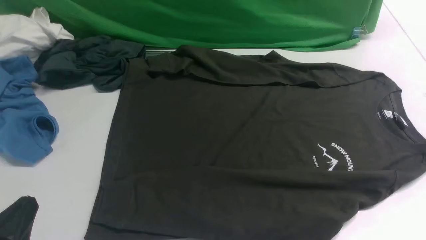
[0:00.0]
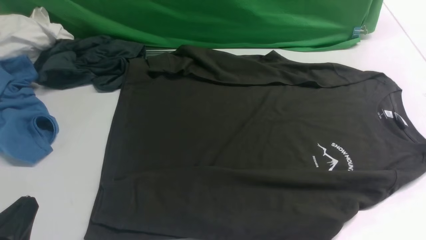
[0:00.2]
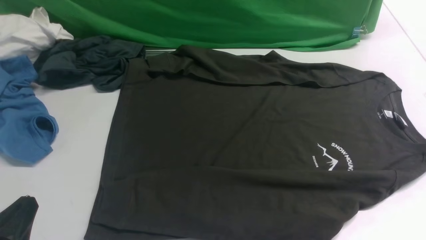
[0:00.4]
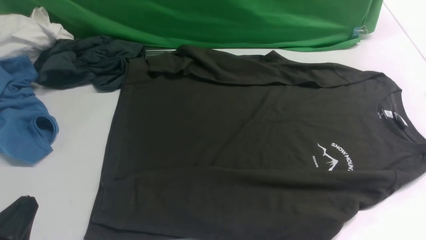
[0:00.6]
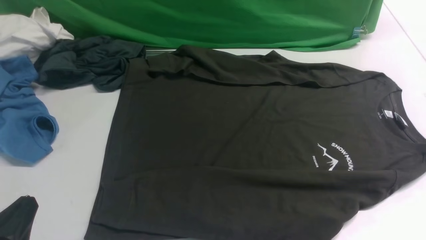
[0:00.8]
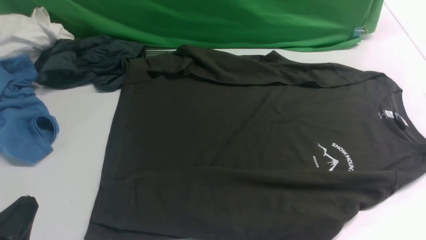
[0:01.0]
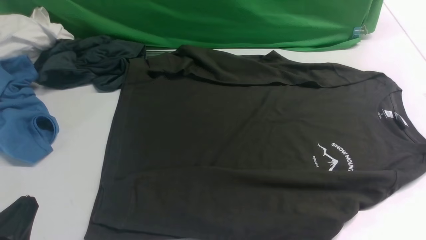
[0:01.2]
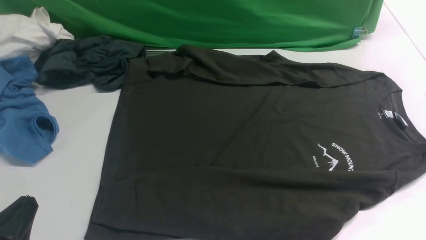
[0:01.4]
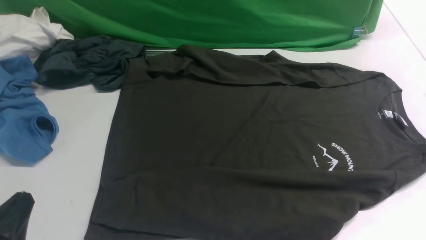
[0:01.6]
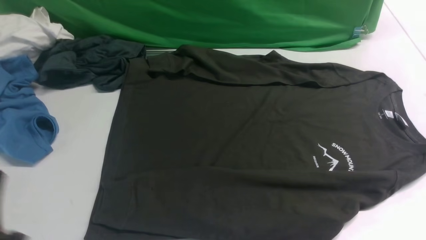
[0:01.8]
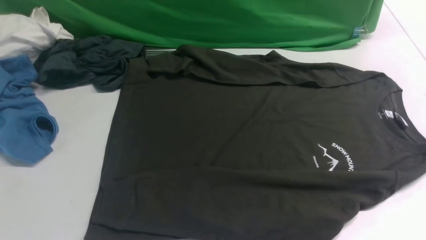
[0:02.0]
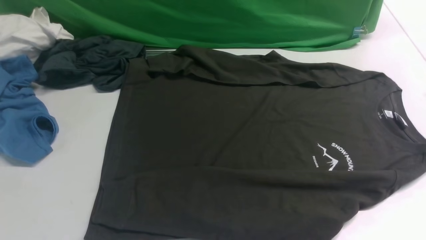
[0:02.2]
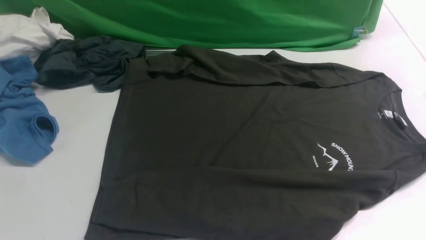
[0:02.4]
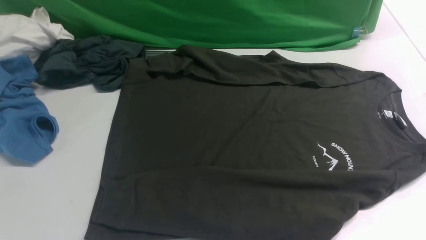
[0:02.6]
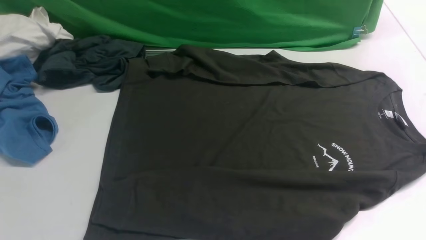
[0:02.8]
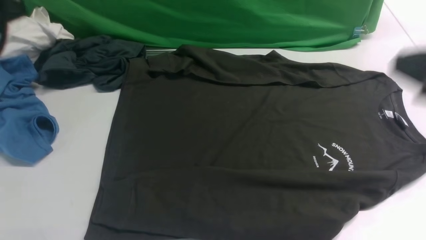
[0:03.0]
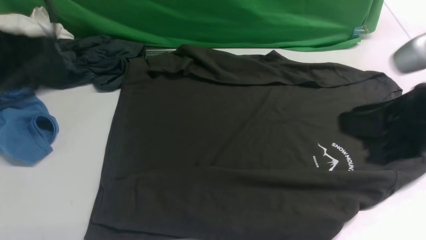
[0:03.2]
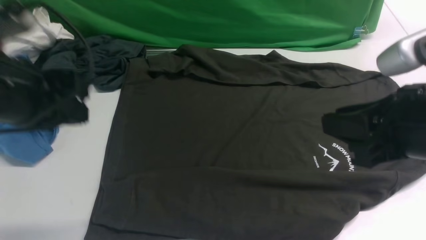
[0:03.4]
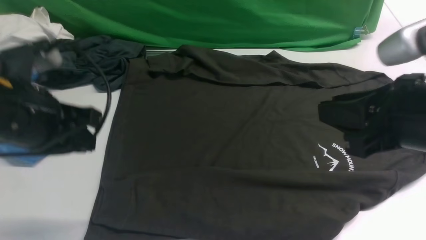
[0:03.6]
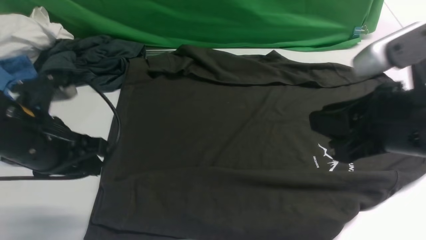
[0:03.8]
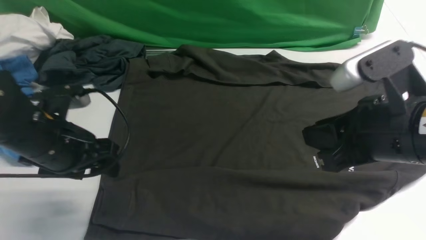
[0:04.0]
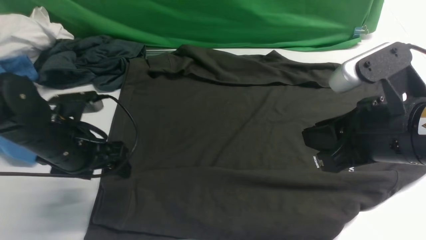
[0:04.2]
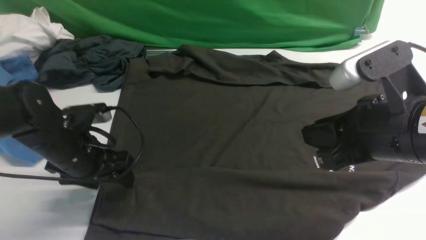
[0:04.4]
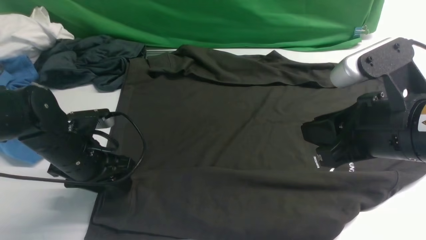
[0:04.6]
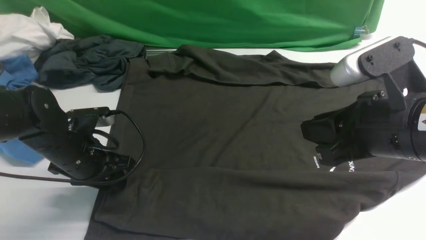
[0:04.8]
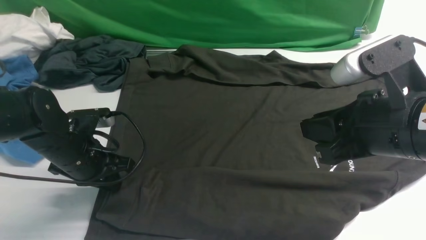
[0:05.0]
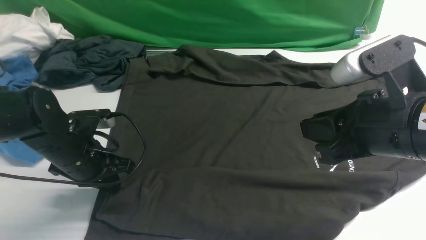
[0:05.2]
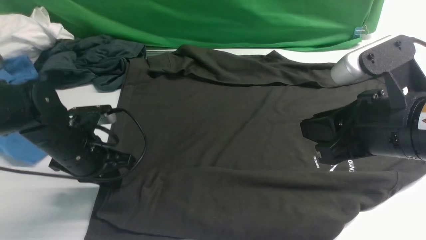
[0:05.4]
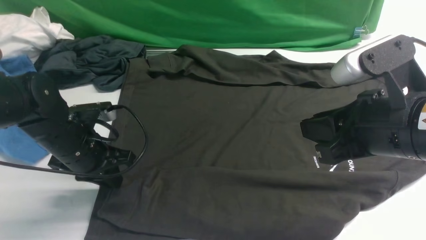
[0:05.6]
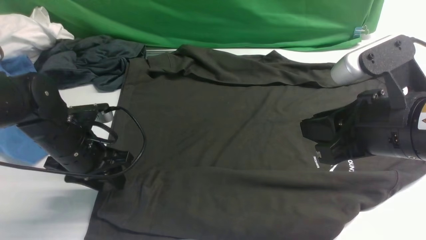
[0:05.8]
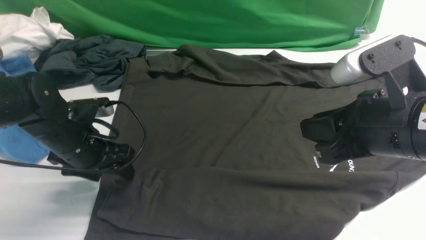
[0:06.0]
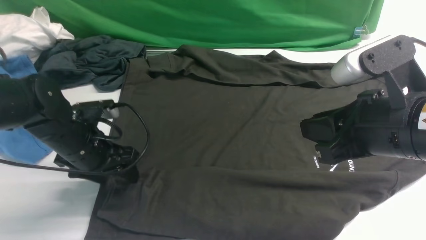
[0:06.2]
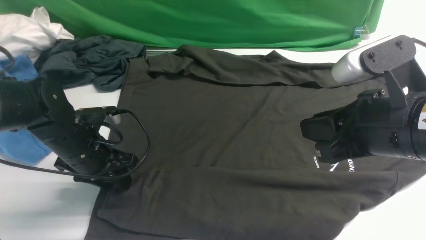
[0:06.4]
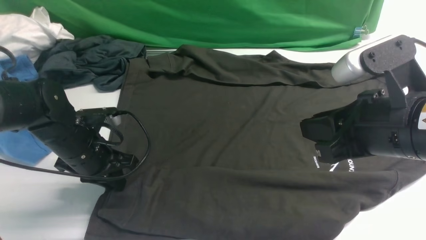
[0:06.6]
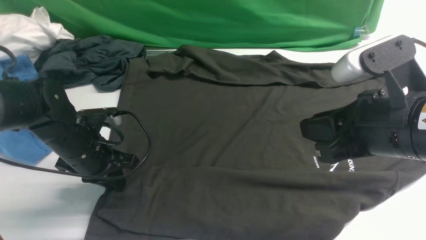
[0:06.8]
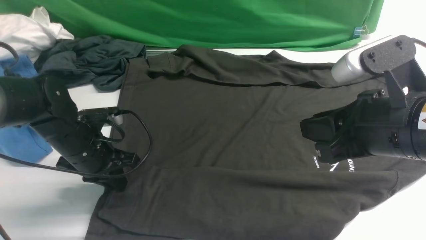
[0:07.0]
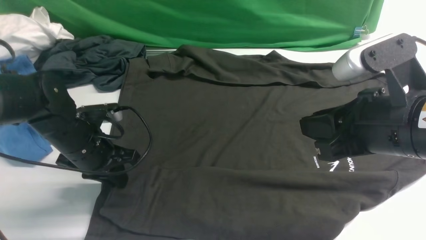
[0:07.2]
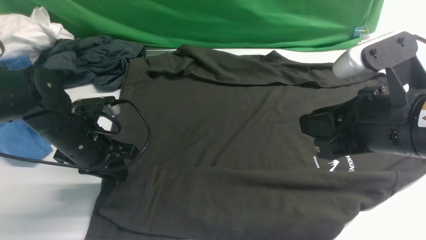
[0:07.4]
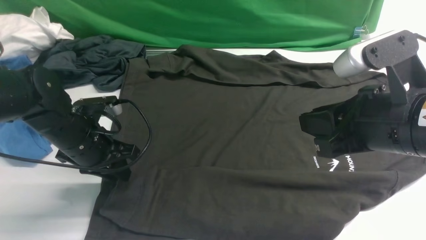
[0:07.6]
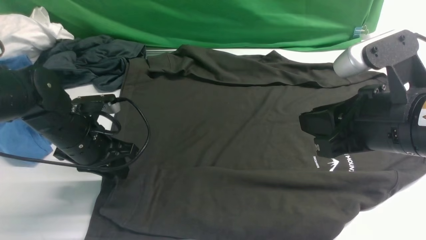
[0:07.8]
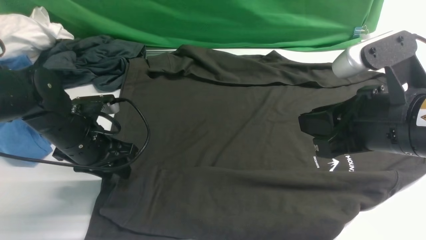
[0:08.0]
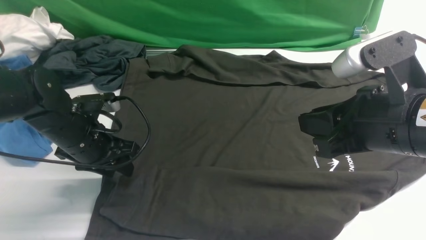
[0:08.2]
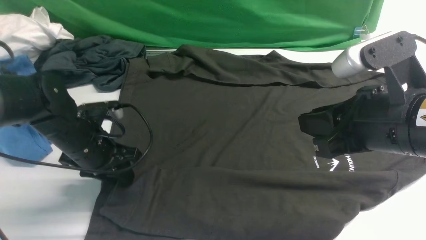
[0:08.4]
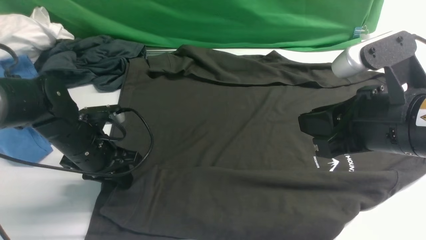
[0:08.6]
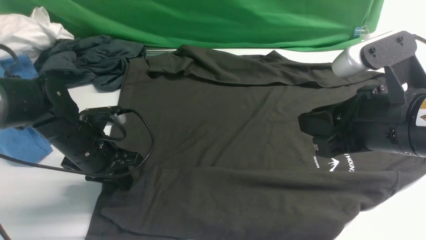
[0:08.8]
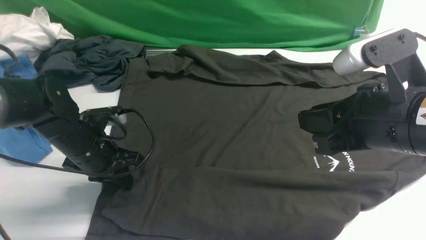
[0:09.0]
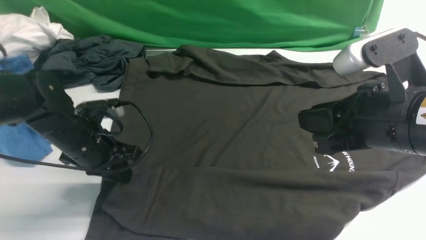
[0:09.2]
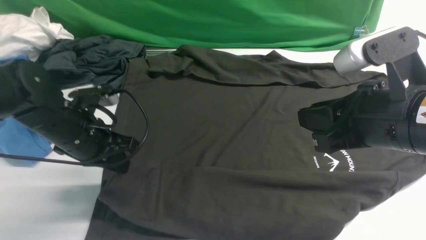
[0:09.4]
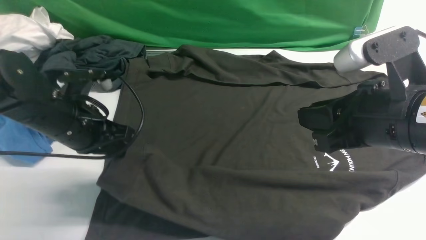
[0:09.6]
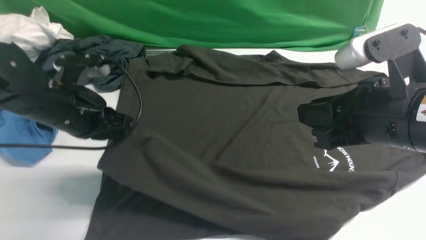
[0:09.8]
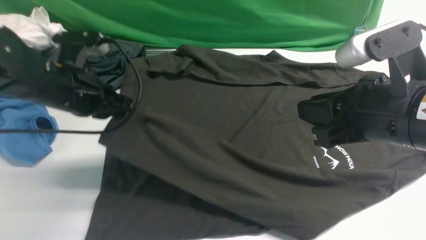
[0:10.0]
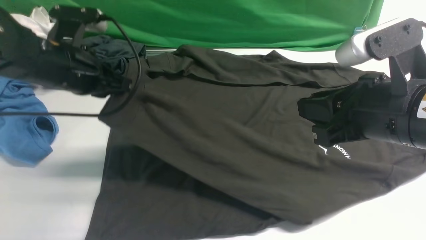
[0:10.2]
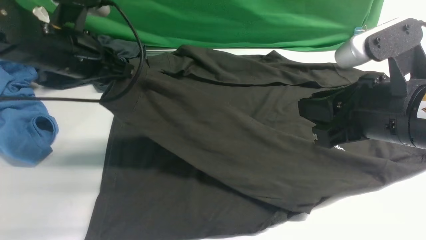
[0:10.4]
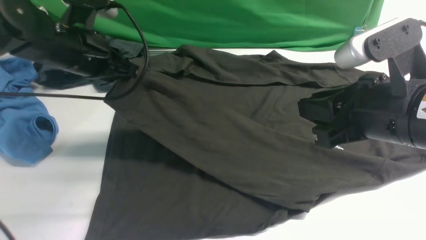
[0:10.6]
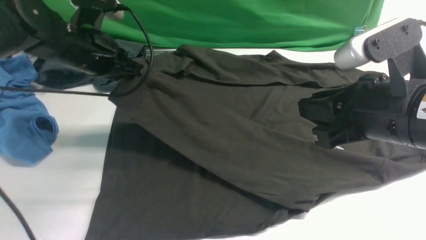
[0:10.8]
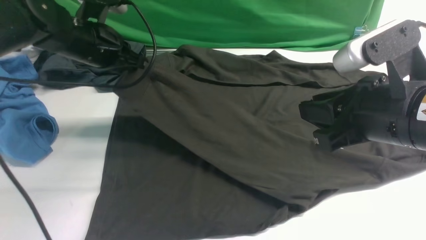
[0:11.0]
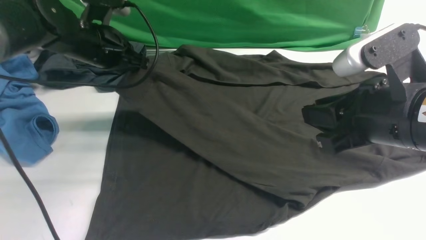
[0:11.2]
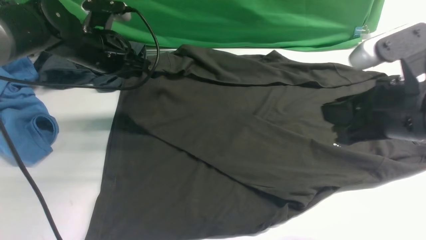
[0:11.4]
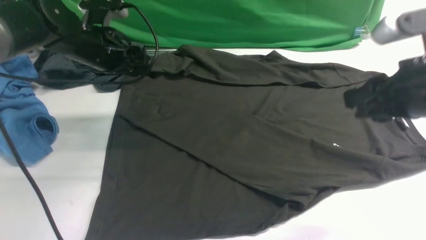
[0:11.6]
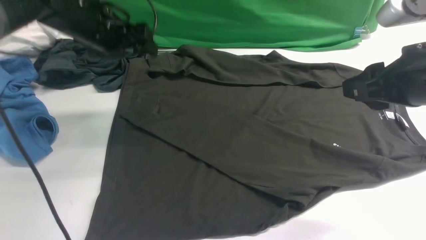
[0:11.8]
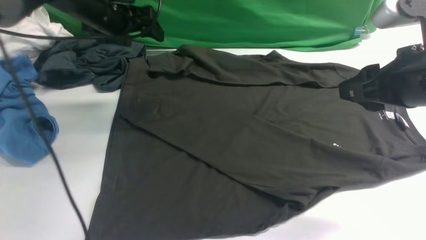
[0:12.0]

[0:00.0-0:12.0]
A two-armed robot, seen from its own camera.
Step, 0:00.0 to 0:09.4: use the left arm to clamp the cuff closest to it.
Step, 0:09.6 to 0:11.8: use the left arm to drag and place the cuff at the centered position on the left edge of the fabric.
0:01.6 to 0:03.0: The left gripper heads upward and forward, covering about 25 cm, while the right gripper moves upward, forward and to the left, some 20 cm.
0:03.0 to 0:04.4: The right gripper shifts roughly 10 cm downward and to the left, while the left gripper goes some 25 cm downward, and opens.
0:04.4 to 0:06.0: The left gripper closes, then reopens.
0:06.0 to 0:07.6: The left gripper closes its fingers.
0:07.6 to 0:09.0: The grippers make only small movements.
0:09.0 to 0:10.4: The left gripper shifts roughly 10 cm upward.
0:10.4 to 0:12.0: The left gripper moves forward, approximately 10 cm, and opens; the right gripper changes place by roughly 5 cm.

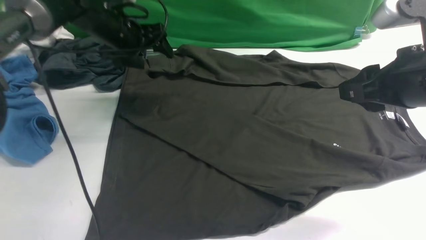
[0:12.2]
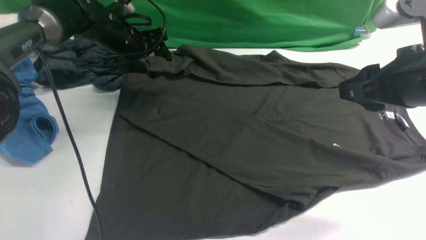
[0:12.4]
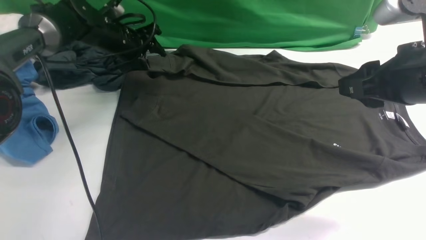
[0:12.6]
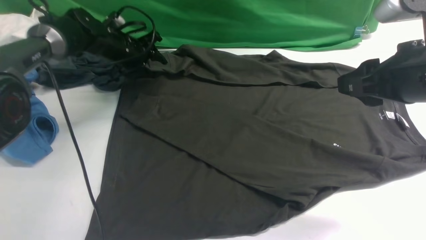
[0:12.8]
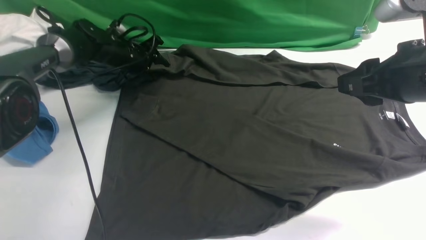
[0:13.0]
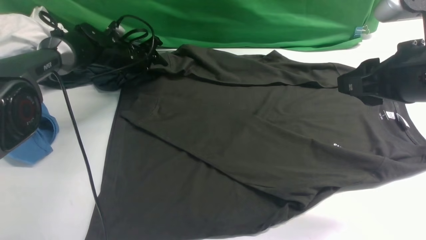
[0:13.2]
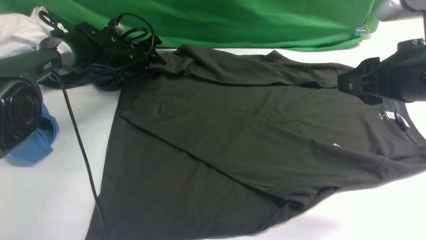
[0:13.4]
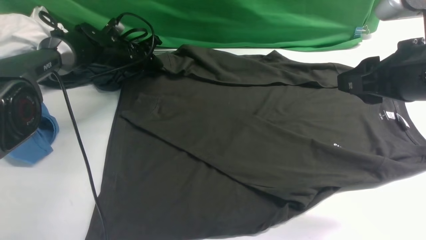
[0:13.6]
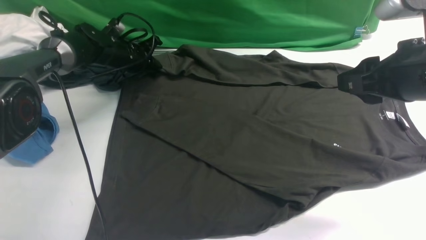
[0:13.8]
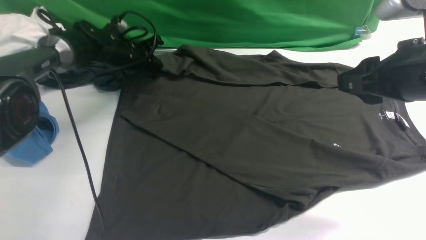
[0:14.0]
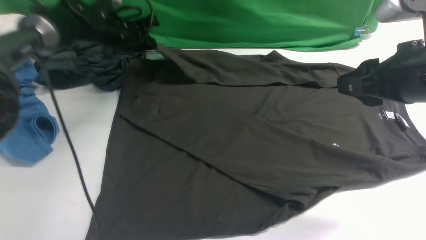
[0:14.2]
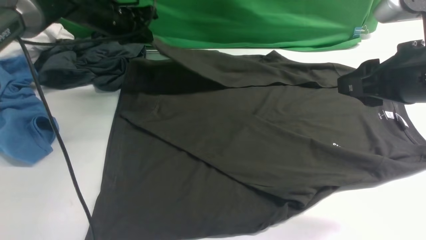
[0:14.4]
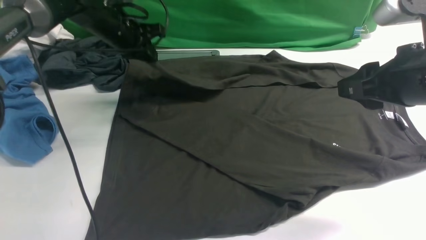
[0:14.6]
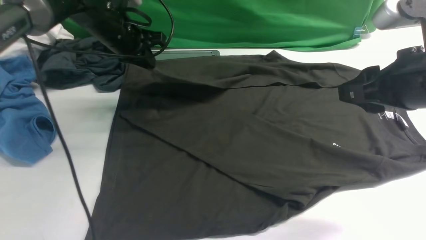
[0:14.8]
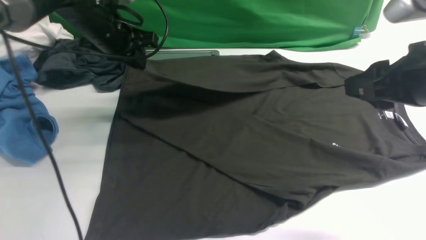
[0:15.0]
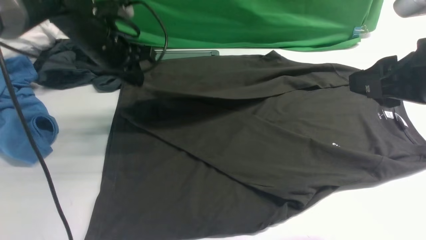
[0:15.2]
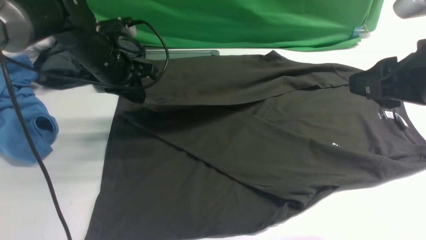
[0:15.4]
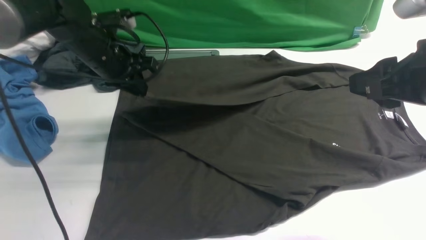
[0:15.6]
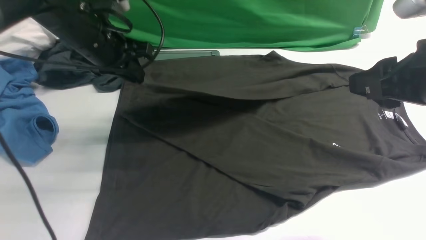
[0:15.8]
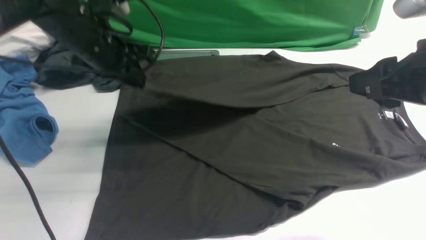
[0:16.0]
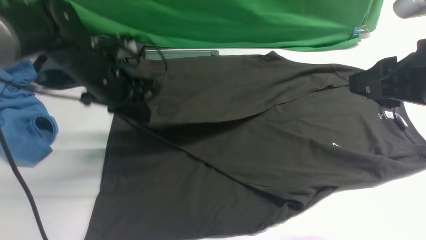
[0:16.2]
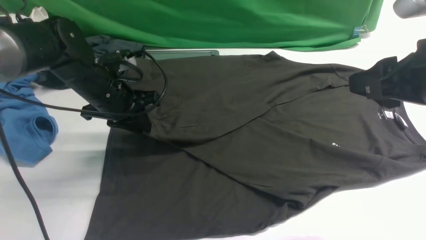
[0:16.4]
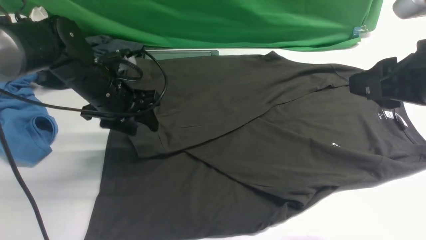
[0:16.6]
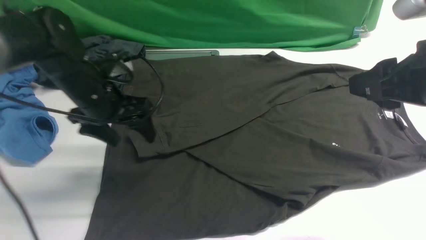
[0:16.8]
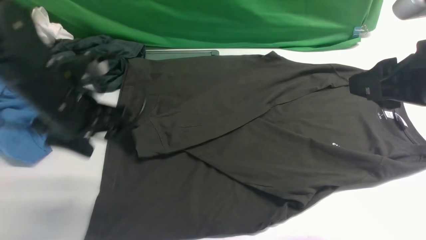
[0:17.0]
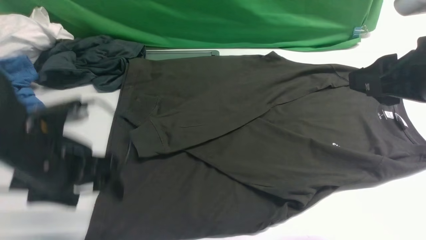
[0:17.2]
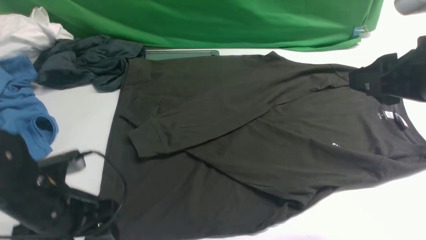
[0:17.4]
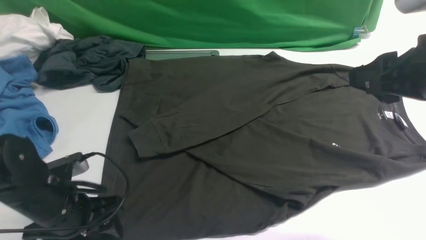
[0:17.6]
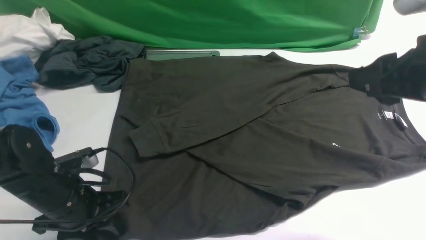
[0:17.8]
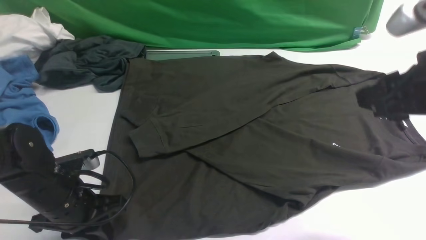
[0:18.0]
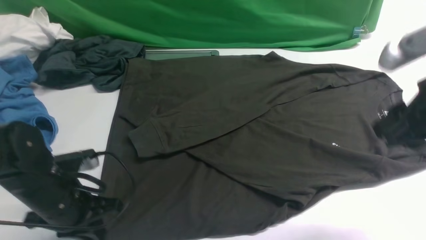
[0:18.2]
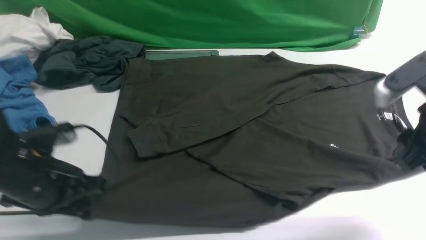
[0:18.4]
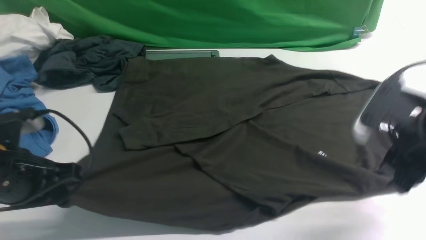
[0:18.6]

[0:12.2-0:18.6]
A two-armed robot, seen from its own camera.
Step, 0:12.2 to 0:14.0: use the left arm to clamp the cuff farthest from it.
Step, 0:14.2 to 0:16.8: use the left arm to drag and drop the cuff onto the cuff closest to the left arm.
0:12.2 to 0:13.8: The left gripper is displaced downward by roughly 10 cm, and closes up.
0:13.8 to 0:15.4: The left gripper moves backward and upward, approximately 15 cm.
0:15.4 to 0:17.0: The left gripper shifts approximately 15 cm backward, and opens.
0:17.0 to 0:18.6: The left gripper moves backward, approximately 5 cm, moves approximately 10 cm downward and comes back, and closes up, while the right gripper goes approximately 10 cm downward.
